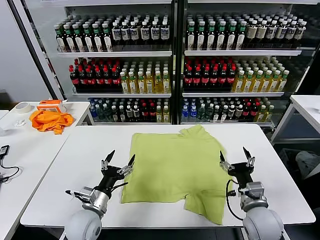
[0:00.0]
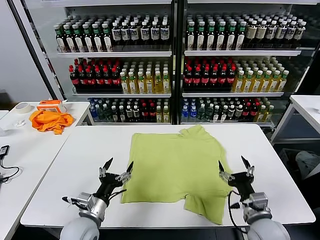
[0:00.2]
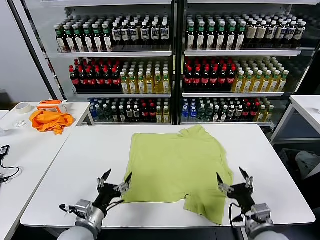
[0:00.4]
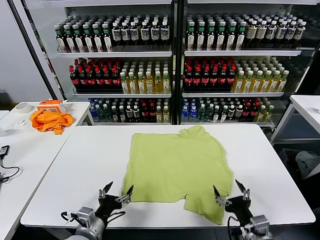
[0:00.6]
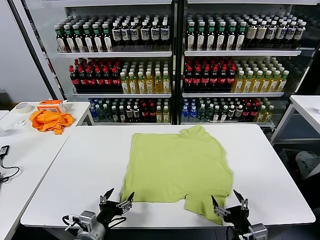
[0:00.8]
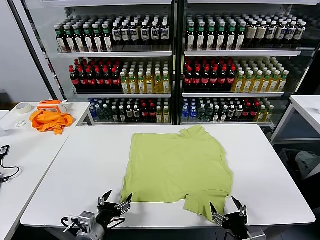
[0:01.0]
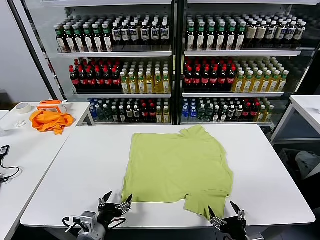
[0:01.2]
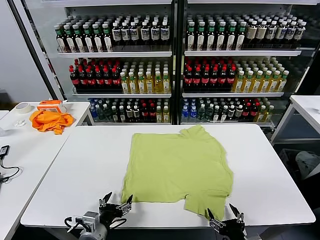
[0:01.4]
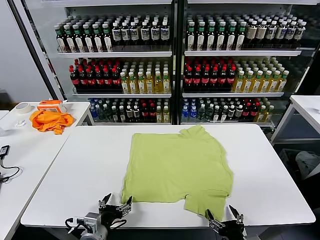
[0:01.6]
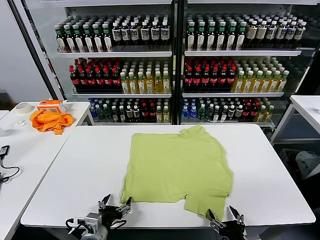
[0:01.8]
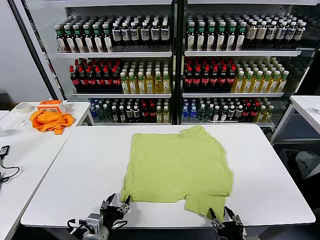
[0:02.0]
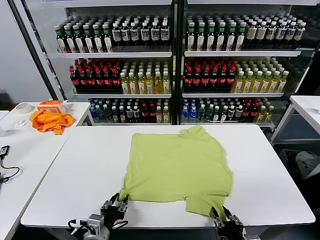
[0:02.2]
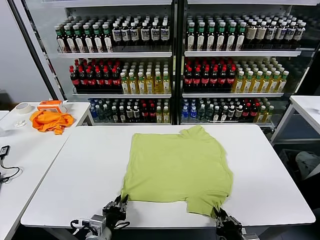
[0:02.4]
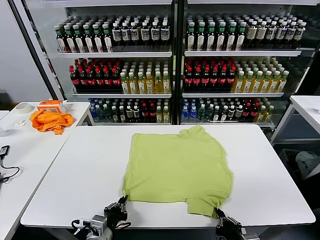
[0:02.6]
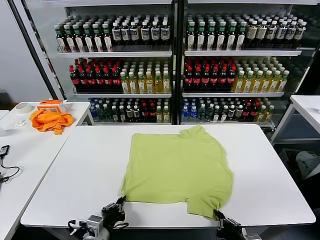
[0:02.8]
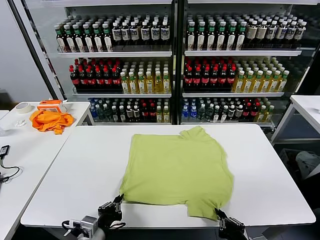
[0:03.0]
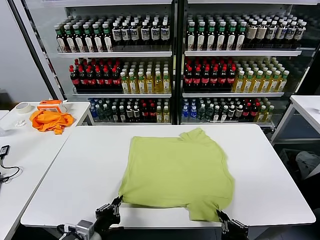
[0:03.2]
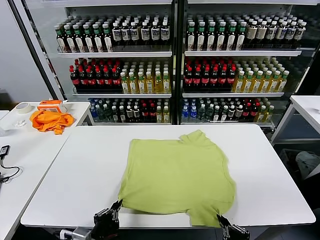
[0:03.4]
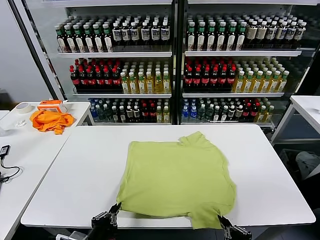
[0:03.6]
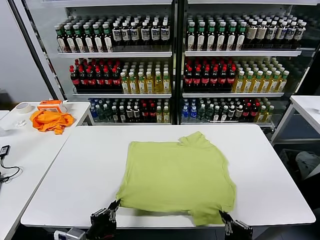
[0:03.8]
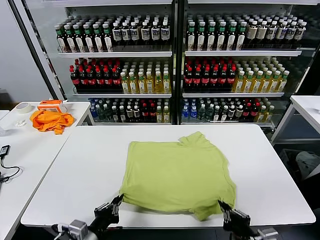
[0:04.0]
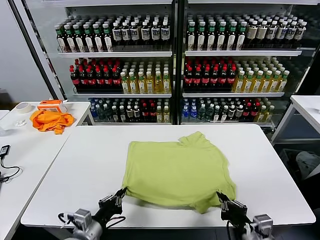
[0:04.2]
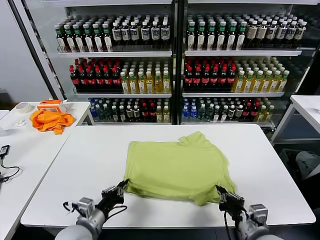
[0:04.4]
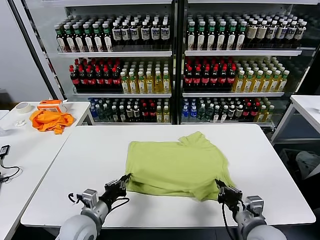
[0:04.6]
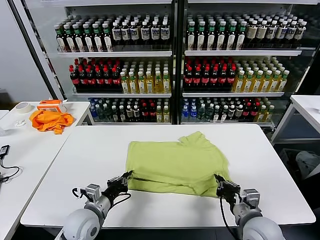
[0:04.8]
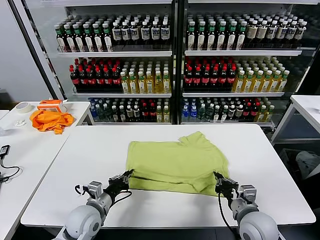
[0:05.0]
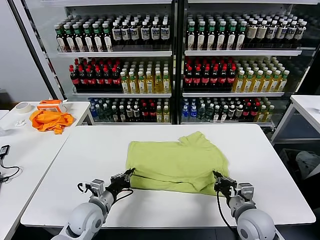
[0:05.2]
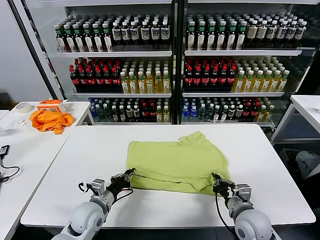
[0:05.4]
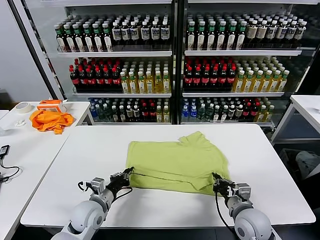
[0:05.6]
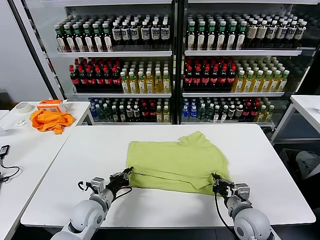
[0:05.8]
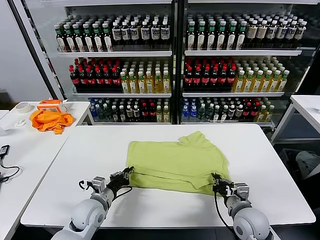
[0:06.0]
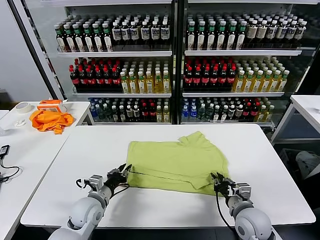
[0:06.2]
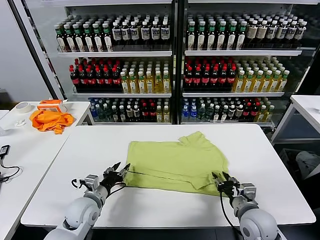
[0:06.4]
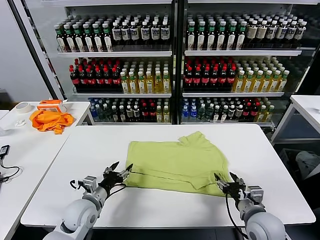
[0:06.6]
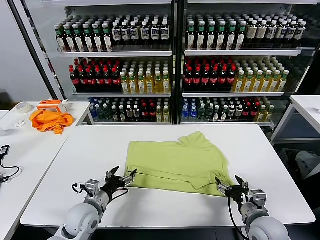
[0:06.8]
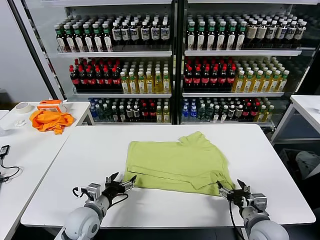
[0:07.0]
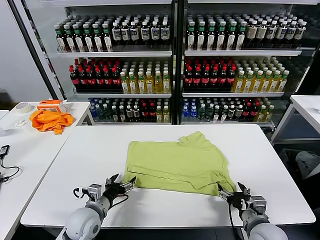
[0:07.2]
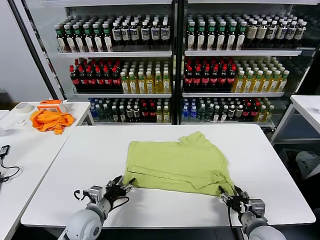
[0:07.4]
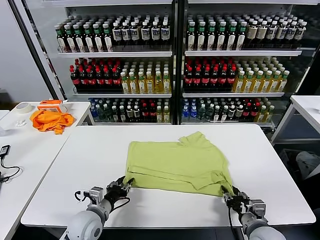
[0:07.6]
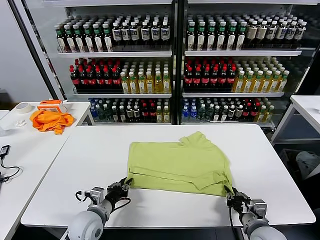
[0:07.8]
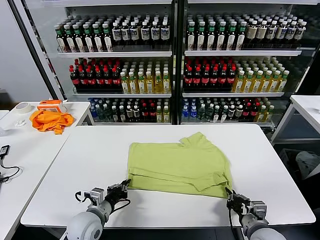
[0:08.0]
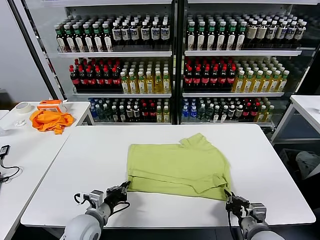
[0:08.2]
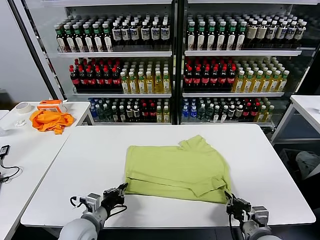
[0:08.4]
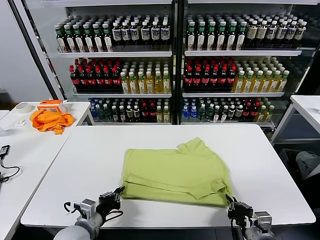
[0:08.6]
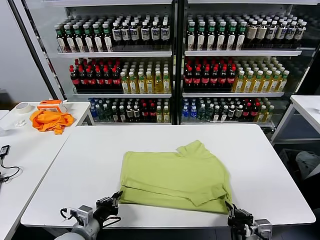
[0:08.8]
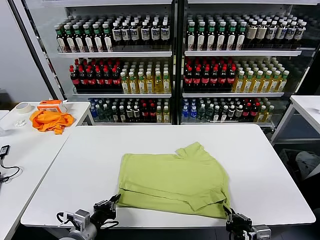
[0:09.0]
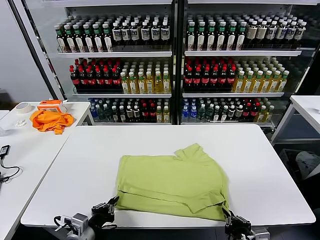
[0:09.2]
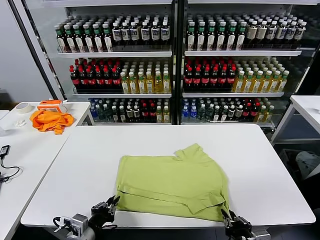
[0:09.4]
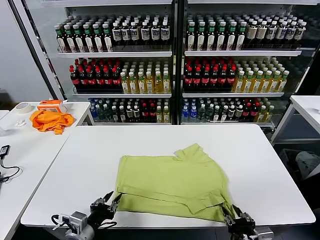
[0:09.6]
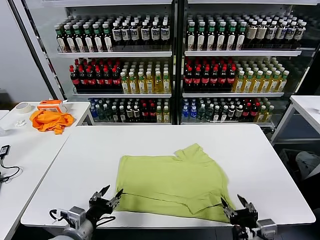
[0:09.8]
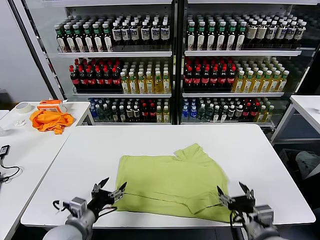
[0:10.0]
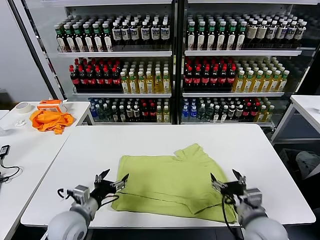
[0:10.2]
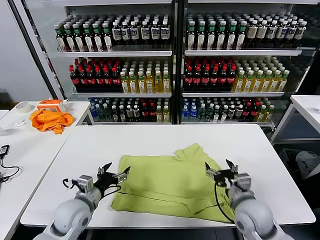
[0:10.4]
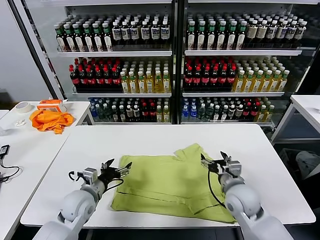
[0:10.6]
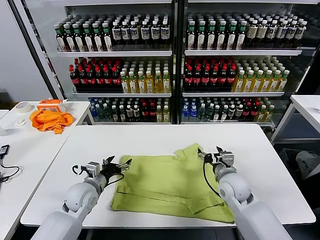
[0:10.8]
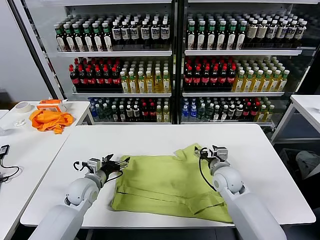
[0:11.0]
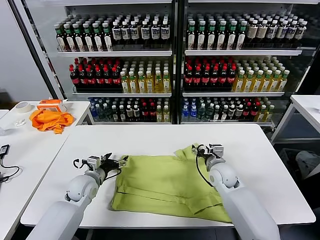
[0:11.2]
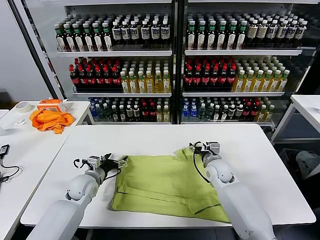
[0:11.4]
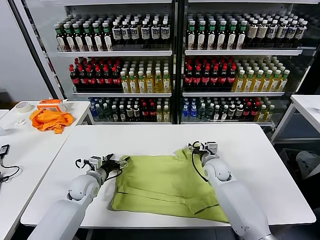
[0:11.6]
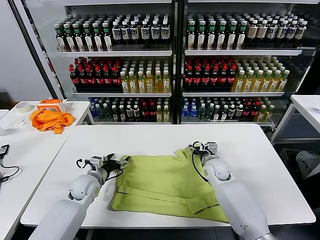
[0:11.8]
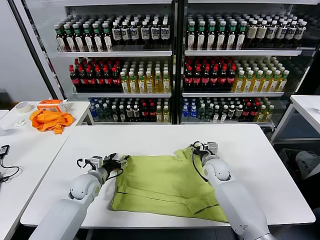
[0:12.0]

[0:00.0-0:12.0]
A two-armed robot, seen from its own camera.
Task of the whole recording: fold and organize the clothes.
Step, 0:00.0 to 0:02.6: use both grippers simultaneously to clamp the lower edge of the clothing fabric.
Step, 0:02.8 to 0:06.2: use both grippers to drag the lower edge of the fabric forward and fold it over the upper edge.
Step, 0:06.4 to 0:09.6: Drag the clothes downward with both gripper.
0:01.6 to 0:03.0: The right gripper closes up. Meanwhile the left gripper closes.
0:03.0 to 0:04.4: The left gripper is displaced forward by roughly 5 cm. The right gripper shifts approximately 10 cm forward.
0:04.4 to 0:06.0: Both grippers move forward, approximately 10 cm.
0:06.0 to 0:07.6: The right gripper is displaced backward by approximately 5 cm, and opens, then closes again, while the left gripper opens.
0:07.6 to 0:09.0: The two grippers go some 10 cm backward. The left gripper closes up.
0:09.0 to 0:10.4: The right gripper travels forward by approximately 15 cm, and opens its fingers. Meanwhile the left gripper heads forward, covering approximately 10 cm, and opens up.
0:10.4 to 0:12.0: Both grippers move forward and downward, approximately 15 cm.

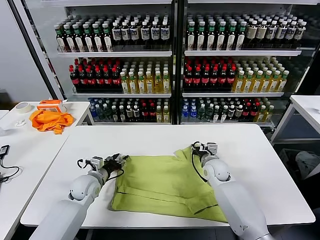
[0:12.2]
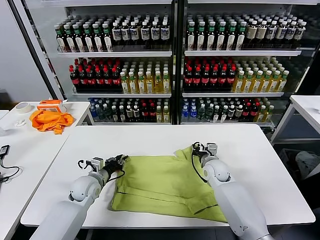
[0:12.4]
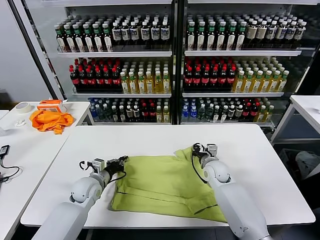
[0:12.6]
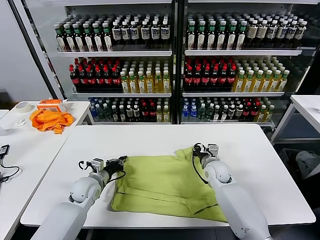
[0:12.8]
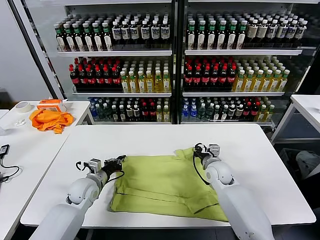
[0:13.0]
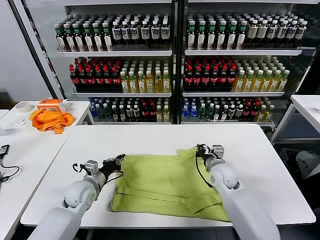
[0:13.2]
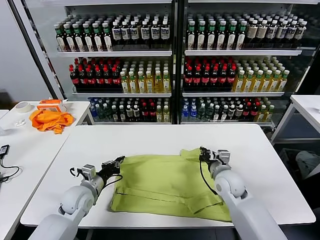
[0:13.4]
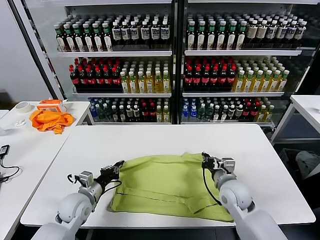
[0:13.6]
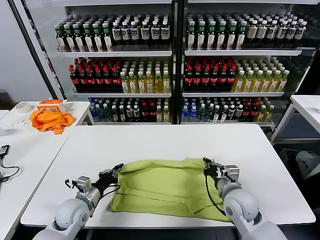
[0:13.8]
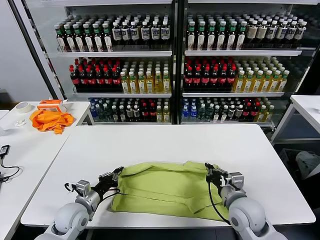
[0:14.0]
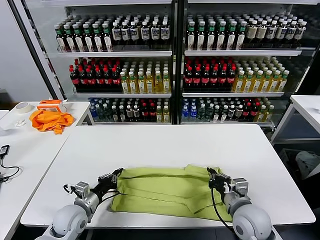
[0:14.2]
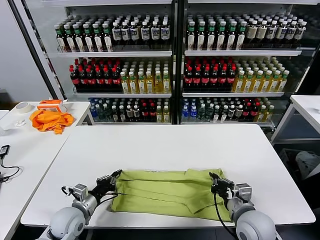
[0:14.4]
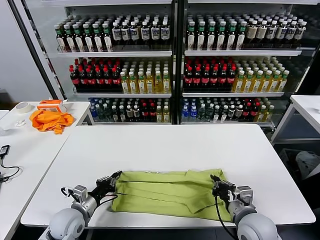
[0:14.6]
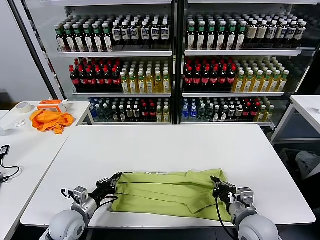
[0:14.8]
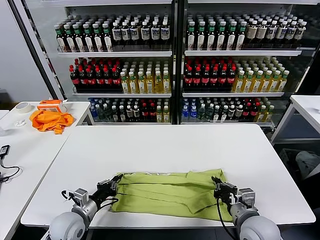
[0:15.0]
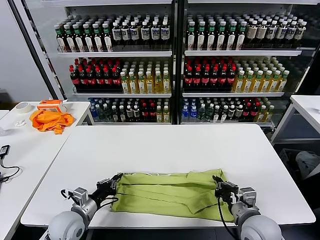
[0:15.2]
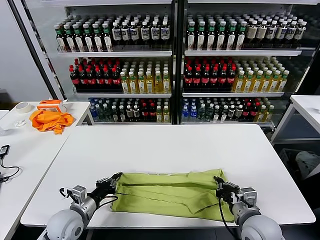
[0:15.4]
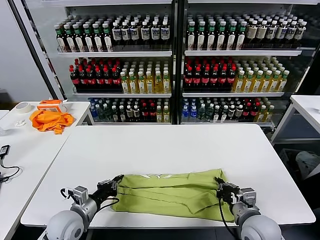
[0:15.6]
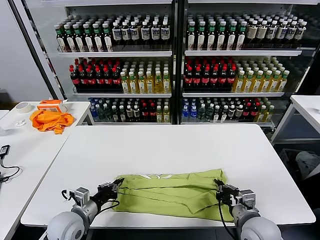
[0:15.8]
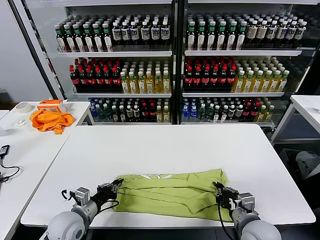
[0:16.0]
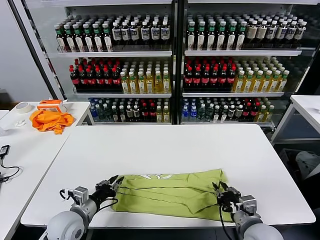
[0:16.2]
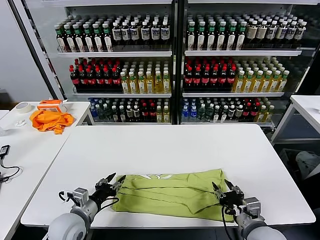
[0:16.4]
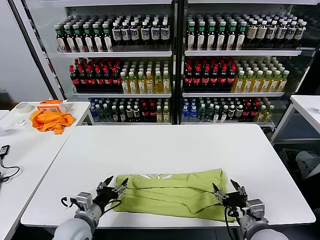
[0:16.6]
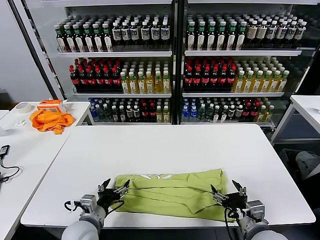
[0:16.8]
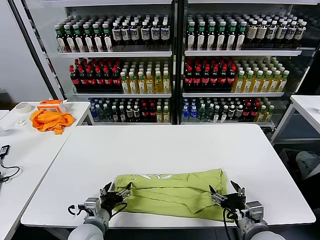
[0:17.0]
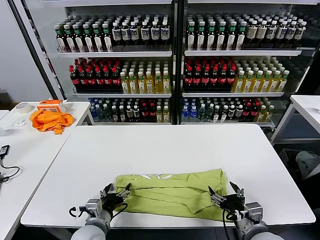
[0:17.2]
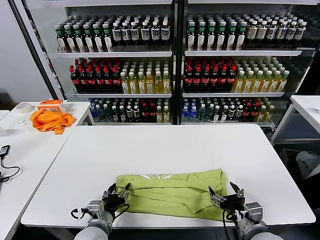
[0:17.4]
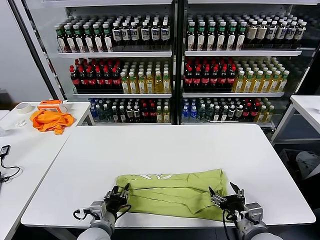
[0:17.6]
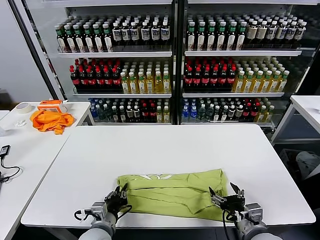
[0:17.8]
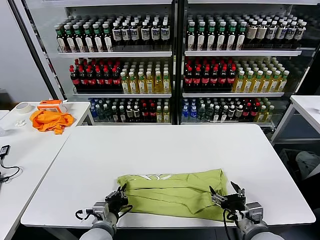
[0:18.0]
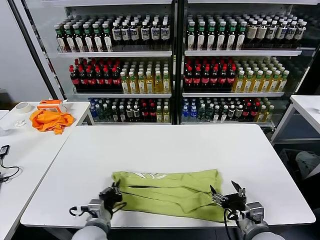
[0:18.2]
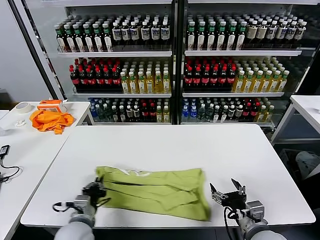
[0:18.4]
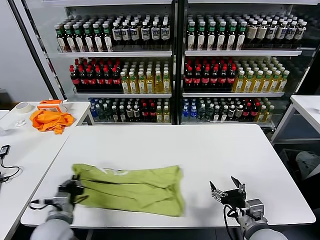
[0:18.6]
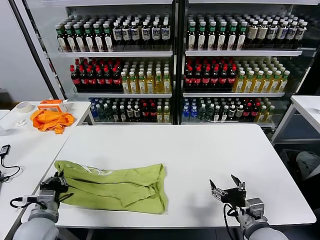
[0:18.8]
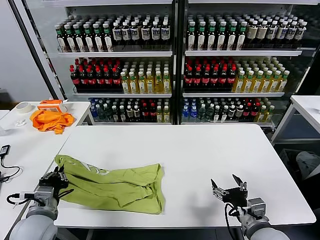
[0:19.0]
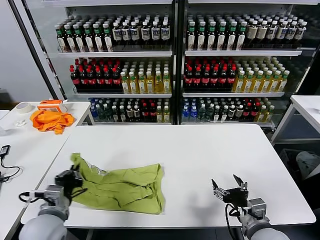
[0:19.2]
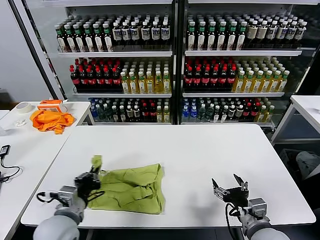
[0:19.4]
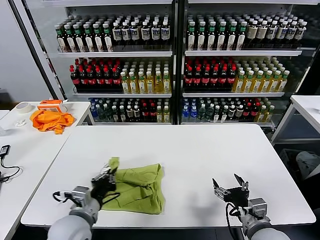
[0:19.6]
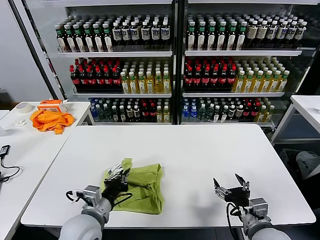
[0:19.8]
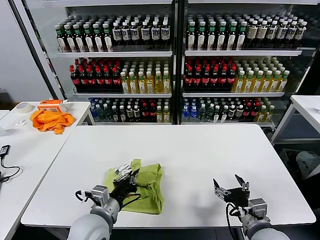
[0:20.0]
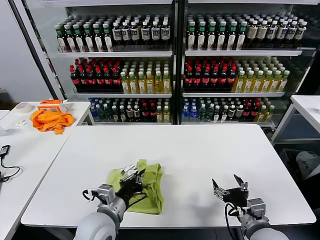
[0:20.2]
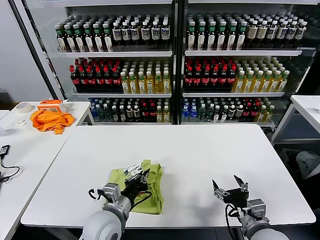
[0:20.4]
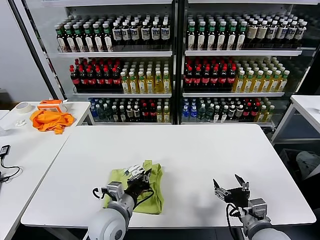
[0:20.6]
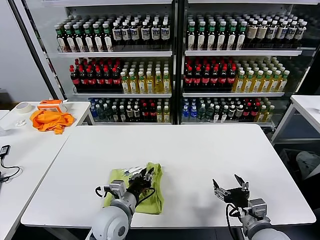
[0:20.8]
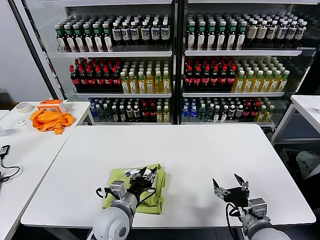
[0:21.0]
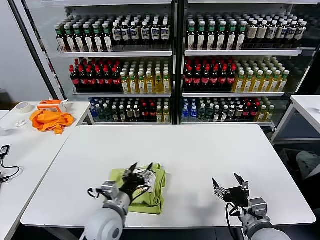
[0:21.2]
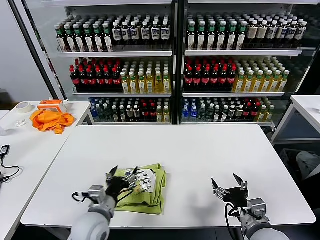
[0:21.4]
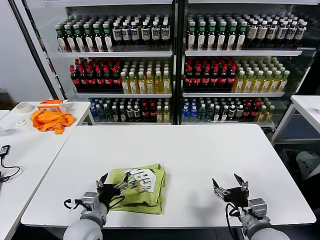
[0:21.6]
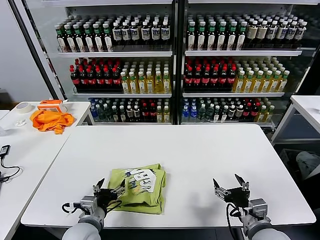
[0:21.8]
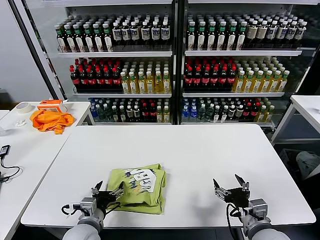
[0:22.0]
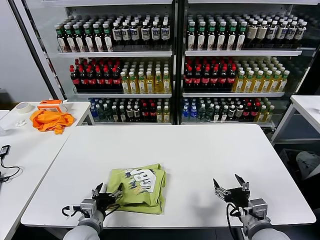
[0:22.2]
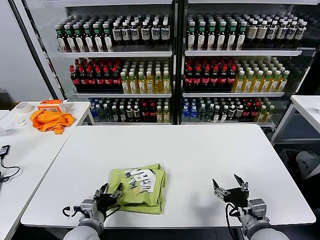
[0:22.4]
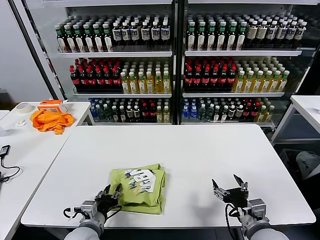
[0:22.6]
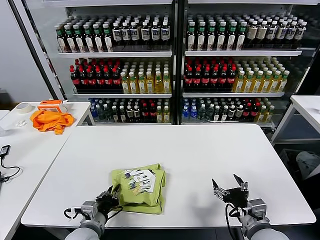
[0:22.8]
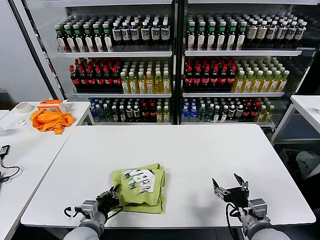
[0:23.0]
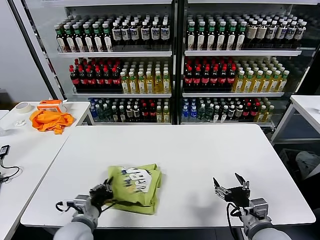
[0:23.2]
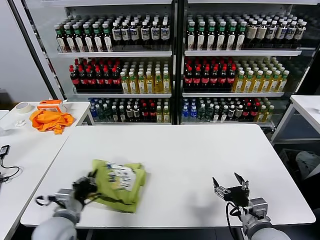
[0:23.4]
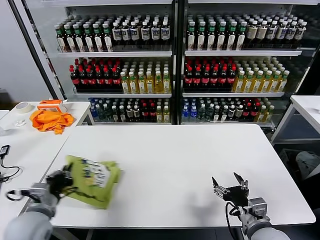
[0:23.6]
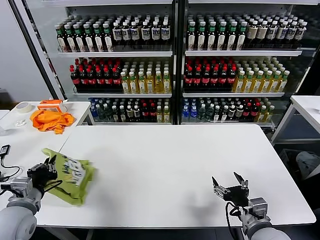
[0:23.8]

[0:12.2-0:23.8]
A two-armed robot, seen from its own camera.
Task of the whole recording: fold and organize the clothes.
Step, 0:13.0 to 0:16.2: use both grippers to drag the upper edge of the fabric backward and fold it over the lower edge.
Step, 0:16.4 to 0:18.0: use the left gripper to clamp the left edge of the fabric.
Step, 0:18.2 to 0:20.8: use the left gripper to drag the left edge of the fabric to the left and folds it over the right edge.
0:12.2 to 0:13.6: The right gripper heads backward and upward, covering some 15 cm, and closes up. The left gripper heads backward, covering about 5 cm, and closes up.
0:13.6 to 0:15.0: The left gripper shifts about 5 cm backward. The right gripper heads backward, covering approximately 10 cm.
0:15.0 to 0:16.6: The right gripper opens up. Meanwhile the left gripper ends up some 5 cm from where it was, and opens up.
0:16.6 to 0:18.0: The left gripper travels to the right by roughly 5 cm, and closes up.
0:18.0 to 0:19.4: The left gripper moves upward and to the left, some 15 cm.
0:19.4 to 0:21.0: The left gripper shifts some 15 cm to the right, and opens.
0:21.0 to 0:22.4: The left gripper shifts approximately 10 cm to the left and downward.
0:22.4 to 0:23.8: The left gripper shifts about 20 cm to the left and upward, and closes.
